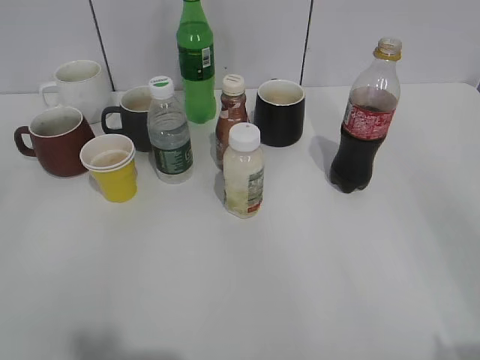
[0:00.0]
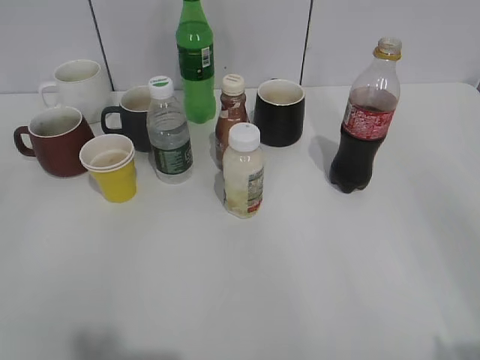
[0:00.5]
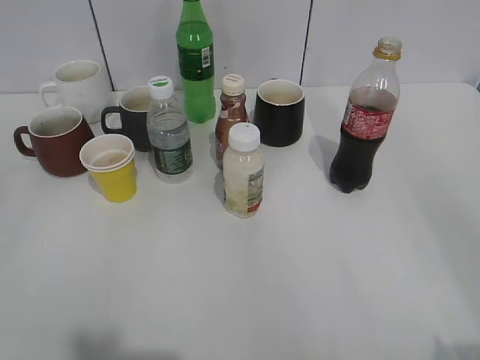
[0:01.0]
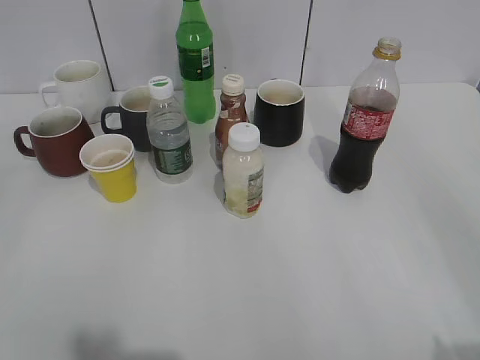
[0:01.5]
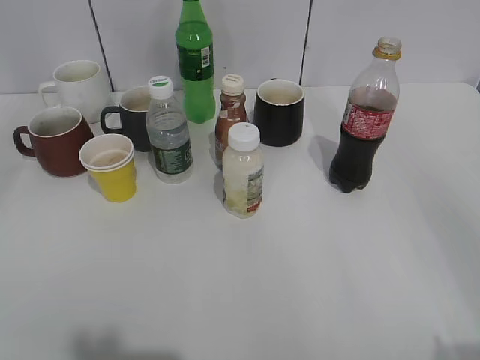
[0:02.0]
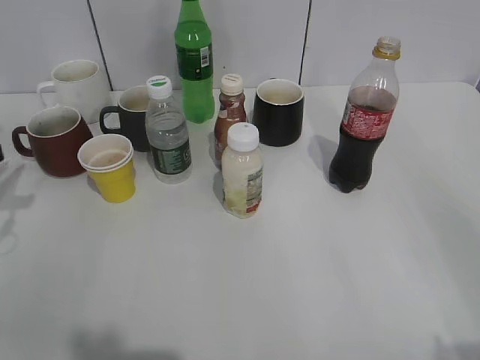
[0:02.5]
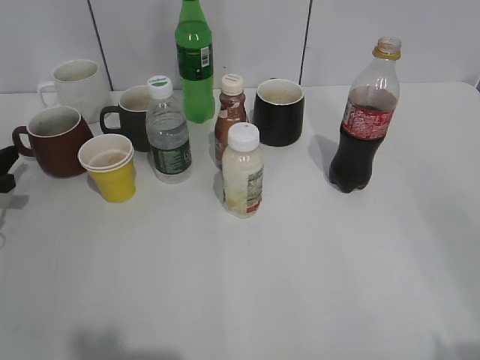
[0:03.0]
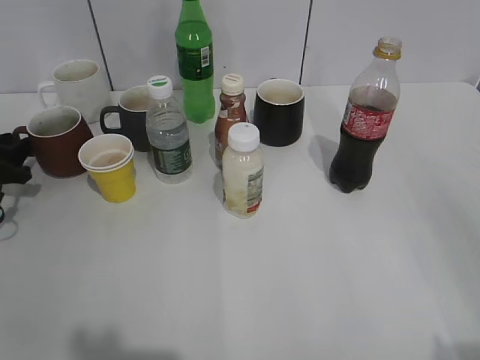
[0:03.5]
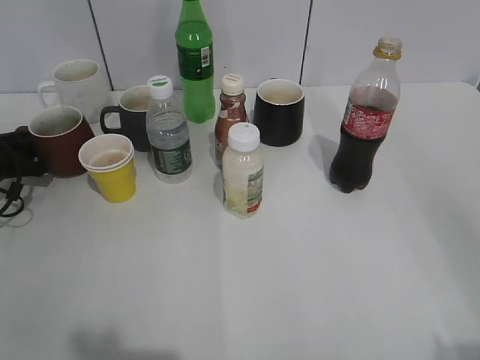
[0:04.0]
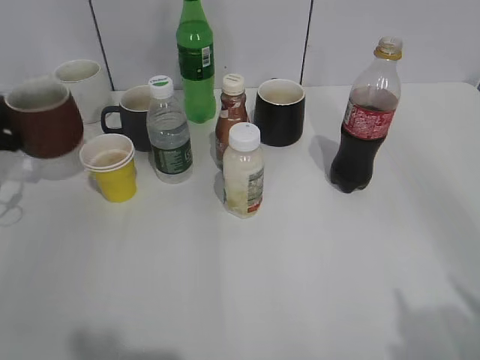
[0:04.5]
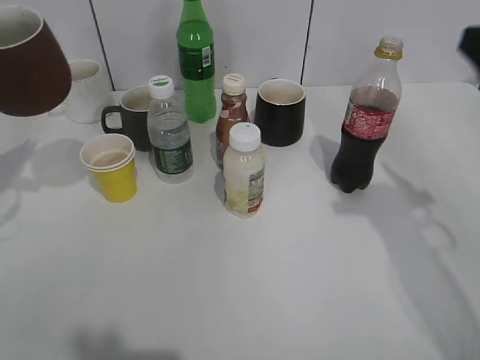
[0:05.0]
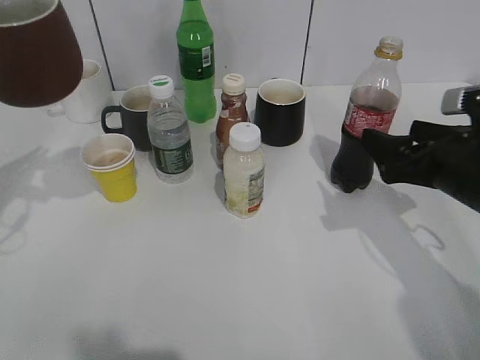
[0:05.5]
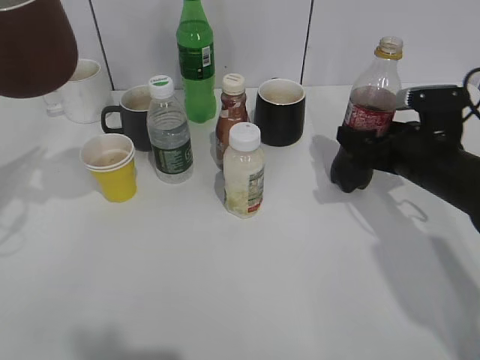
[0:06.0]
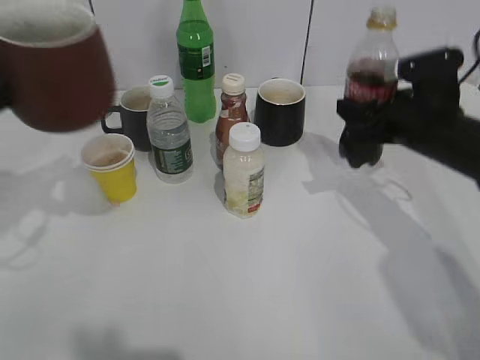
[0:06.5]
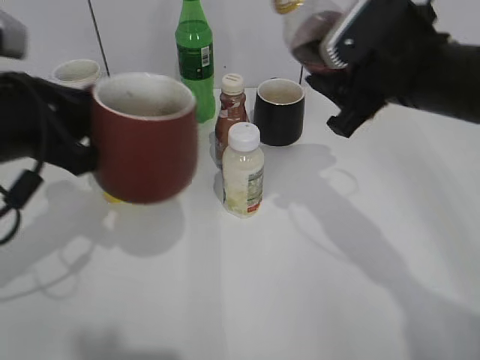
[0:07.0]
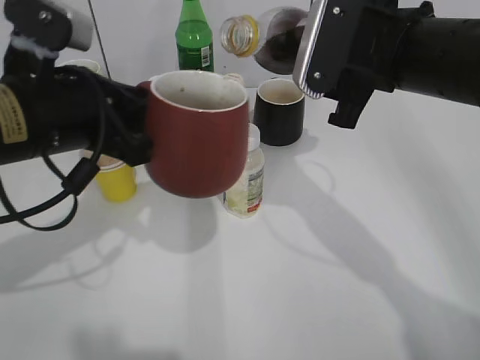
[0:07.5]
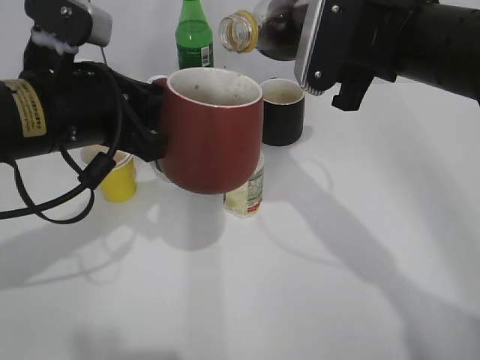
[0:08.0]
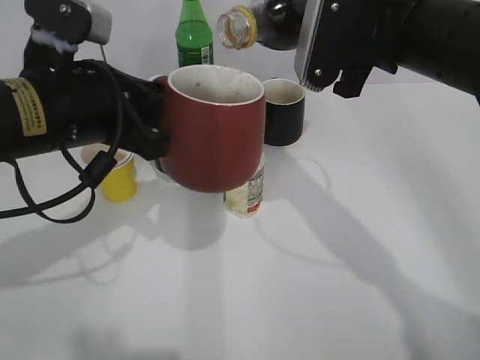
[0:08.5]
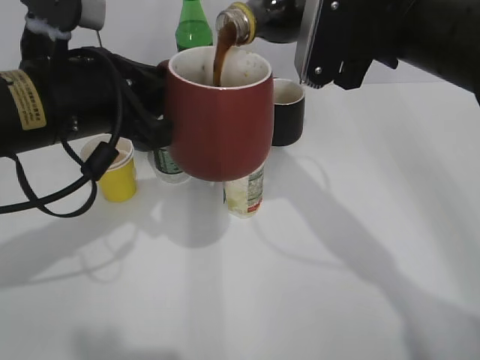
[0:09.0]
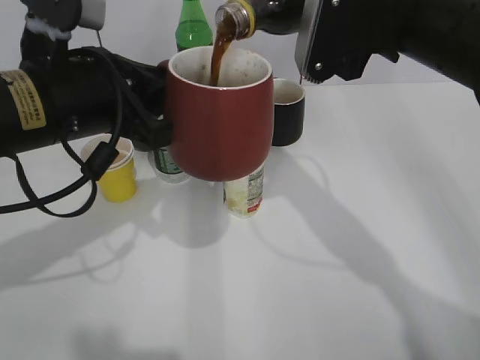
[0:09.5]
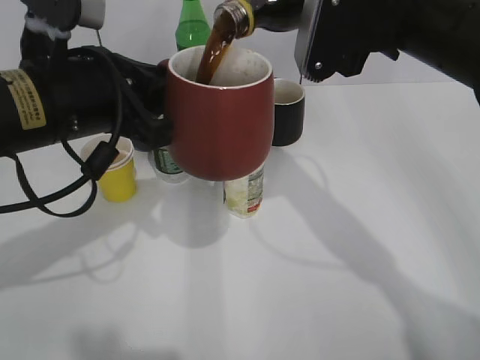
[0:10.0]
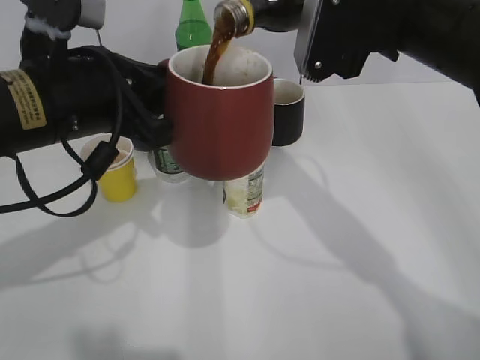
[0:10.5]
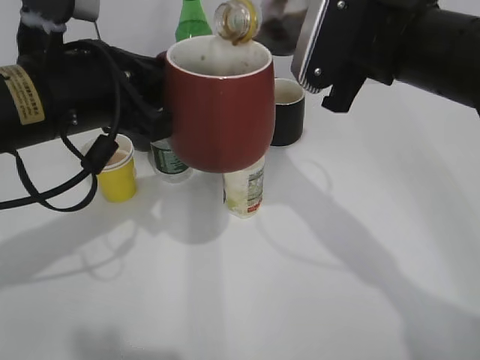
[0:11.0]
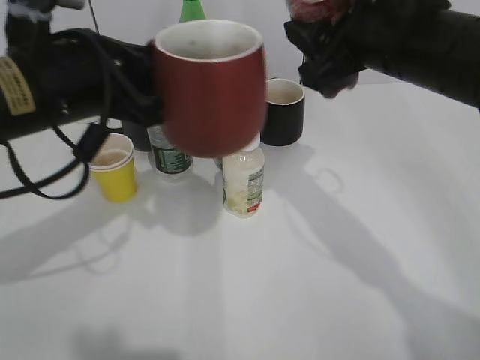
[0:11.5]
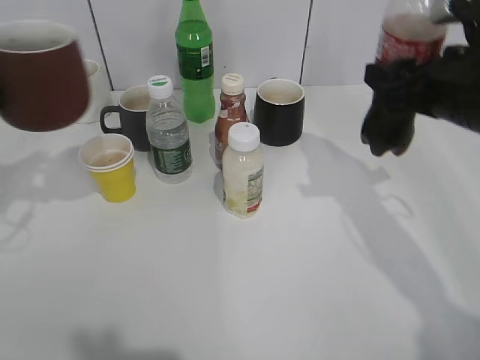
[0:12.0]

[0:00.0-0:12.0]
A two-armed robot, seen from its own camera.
Step, 0:02.0 to 0:04.0: Grasp the red cup with left gripper.
Step, 0:04.5 to 0:06.0: Grasp the bottle with cola with right gripper.
Step, 0:06.5 to 0:11.0: Pour the cola from bottle to cup with right gripper.
0:02.0 to 0:04.0: The left gripper shifts some 40 cm downward and forward.
0:04.0 to 0:06.0: The left gripper moves upward and backward, roughly 25 cm, and closes its fingers. Meanwhile the right gripper shifts about 35 cm forward and downward.
0:06.0 to 0:08.0: The left gripper travels to the right by roughly 15 cm. Meanwhile the right gripper is displaced upward and to the left by some 20 cm, and closes its fingers.
0:08.0 to 0:10.0: The grippers make only small movements.
0:10.0 to 0:12.0: The right gripper is displaced to the right and downward by some 10 cm. Meanwhile the left gripper moves to the left, some 15 cm.

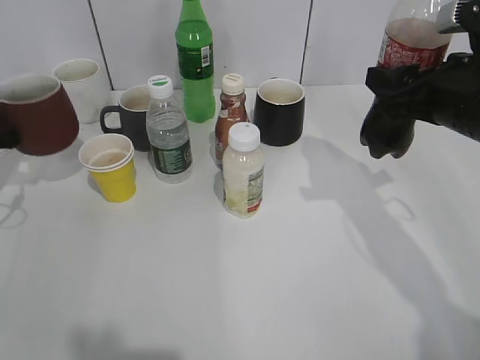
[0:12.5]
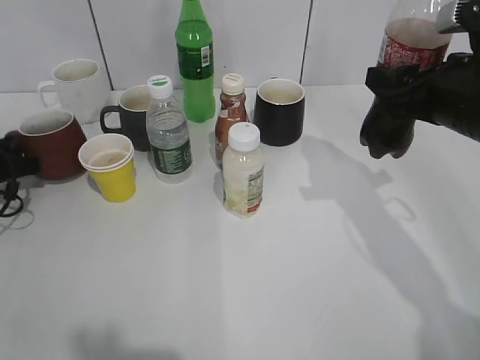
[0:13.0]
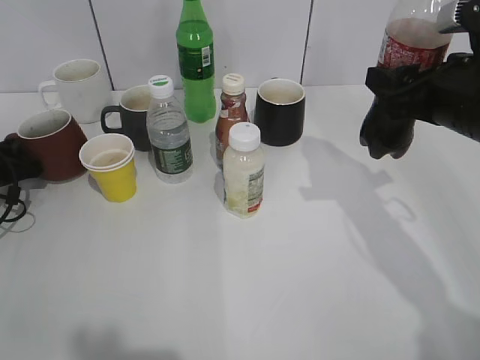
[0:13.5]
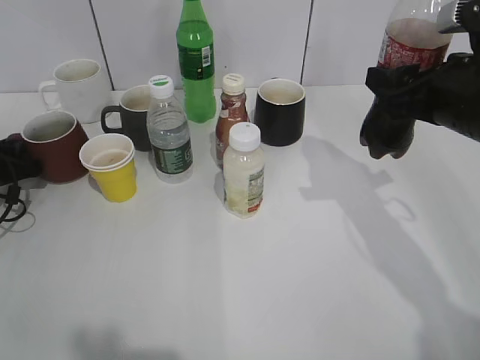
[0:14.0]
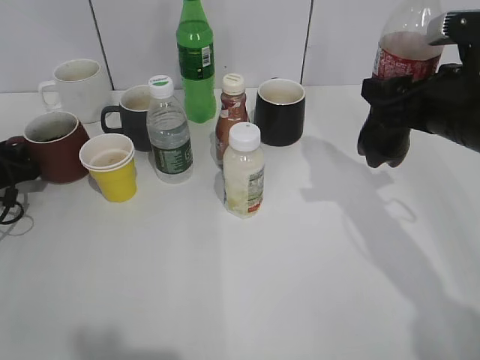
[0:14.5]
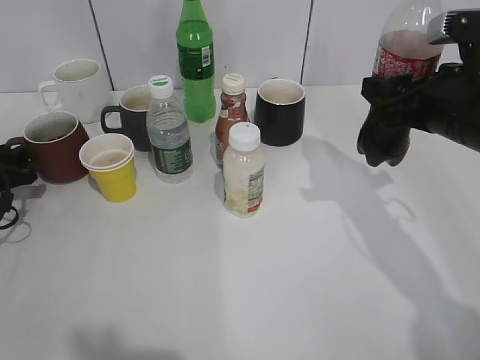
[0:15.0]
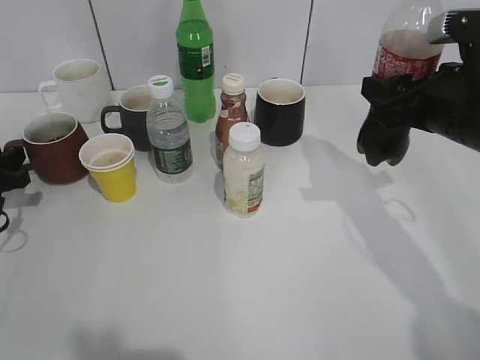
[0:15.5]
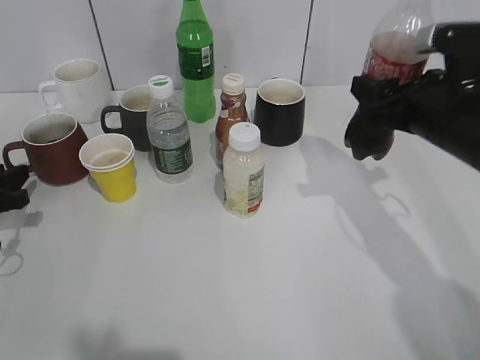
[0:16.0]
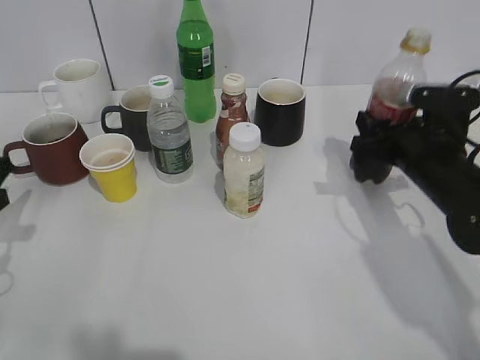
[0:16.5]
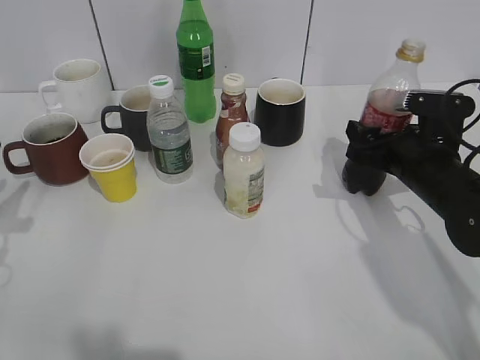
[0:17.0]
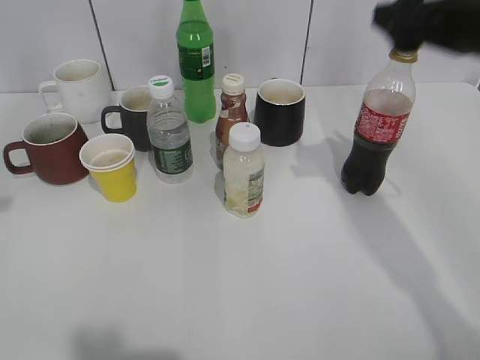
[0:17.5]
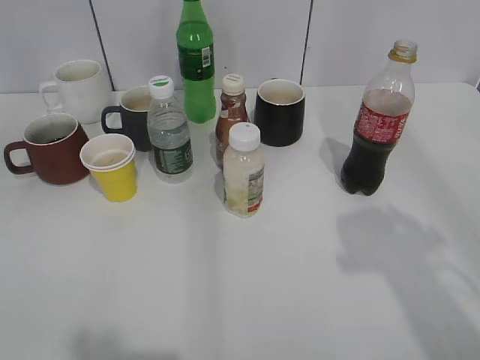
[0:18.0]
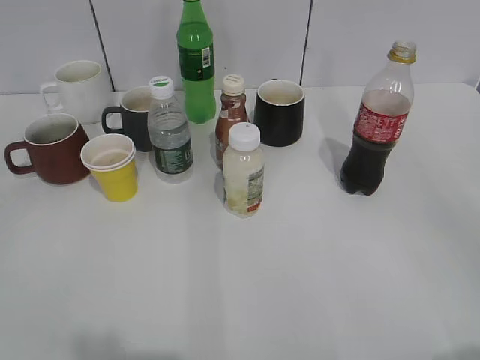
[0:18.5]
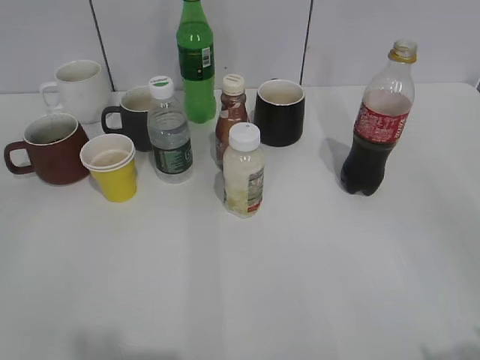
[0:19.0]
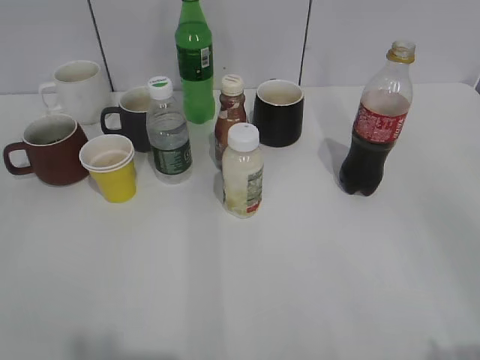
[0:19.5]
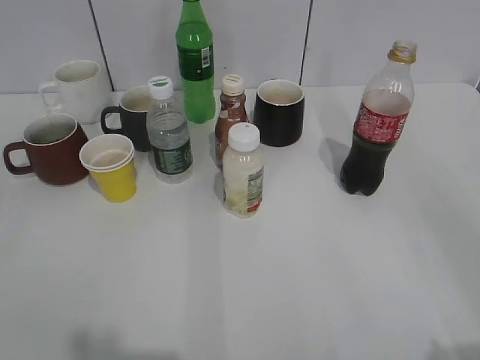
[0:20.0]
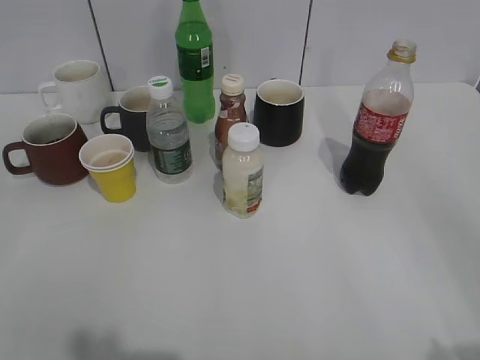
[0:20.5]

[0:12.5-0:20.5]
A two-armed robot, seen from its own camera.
Step, 0:12.5 to 0:17.0: Place the cola bottle on the table with right gripper.
0:12.5 to 0:14.5: The left gripper travels downward by approximately 10 cm, and opens its fingers.
0:14.5 to 0:16.5: The left gripper moves backward and upward, about 15 cm; the right gripper travels downward by about 10 cm.
0:16.5 to 0:18.5: Both grippers travel together backward and upward, about 35 cm. The right gripper opens.
0:18.5 to 0:20.5: The grippers make only small movements.
